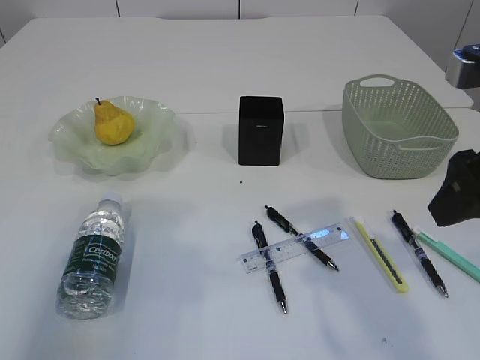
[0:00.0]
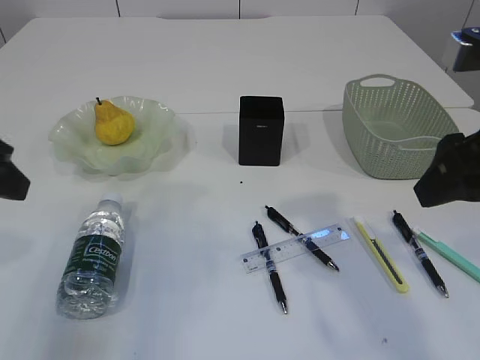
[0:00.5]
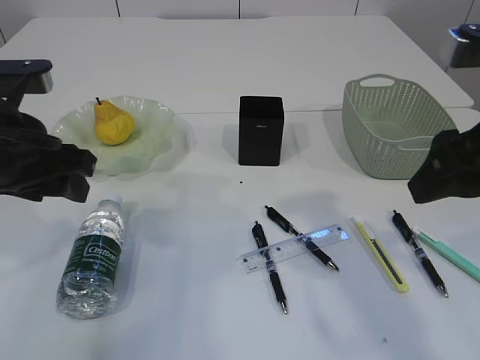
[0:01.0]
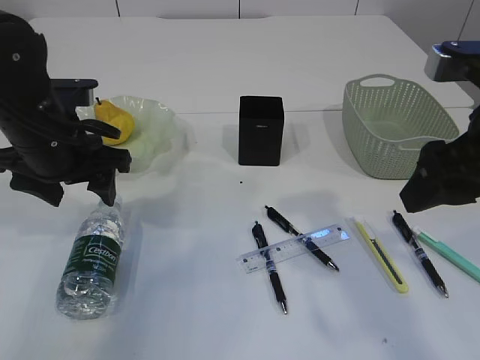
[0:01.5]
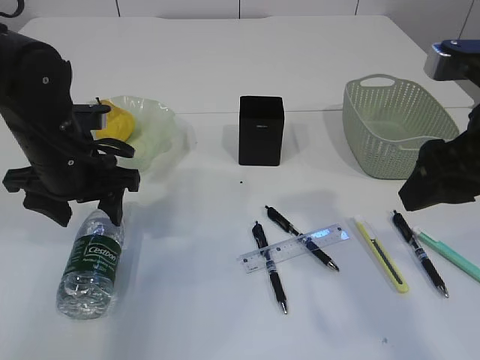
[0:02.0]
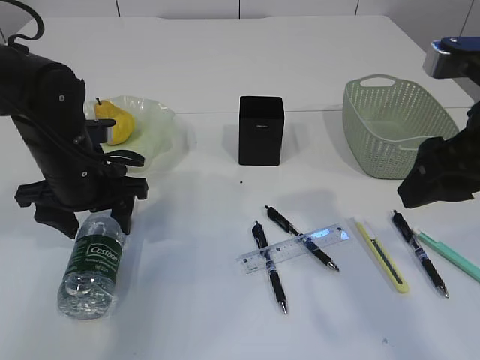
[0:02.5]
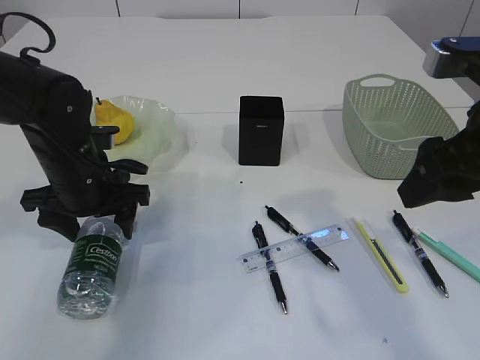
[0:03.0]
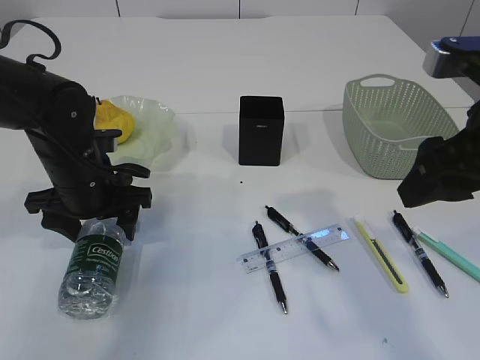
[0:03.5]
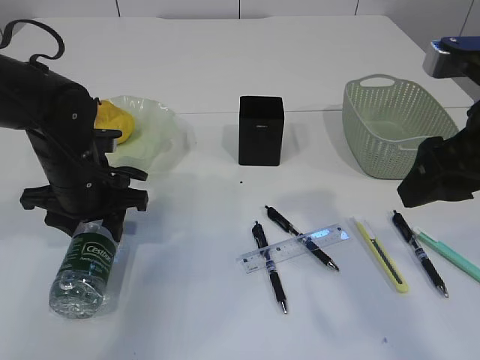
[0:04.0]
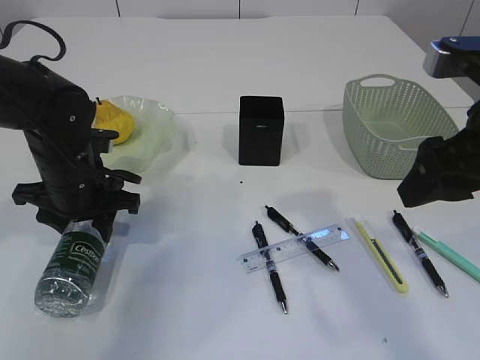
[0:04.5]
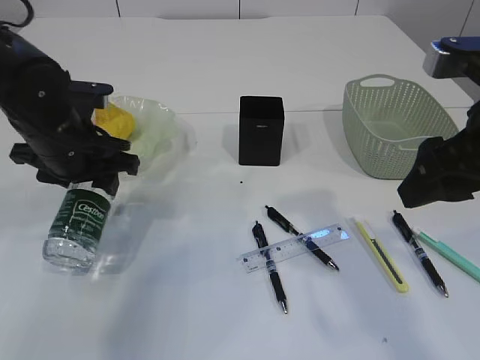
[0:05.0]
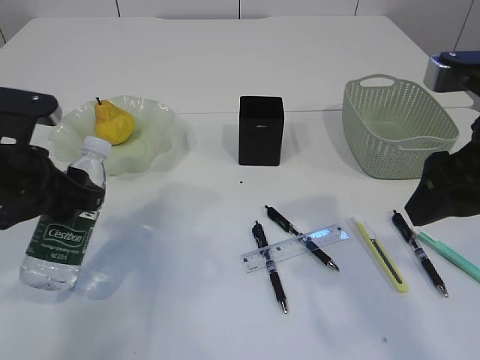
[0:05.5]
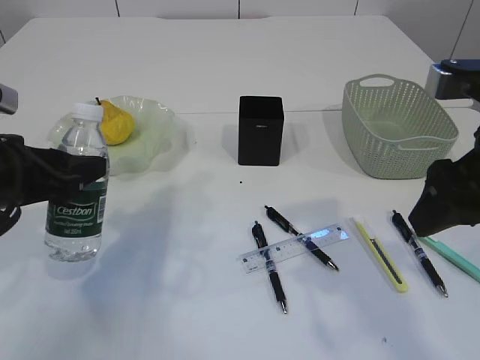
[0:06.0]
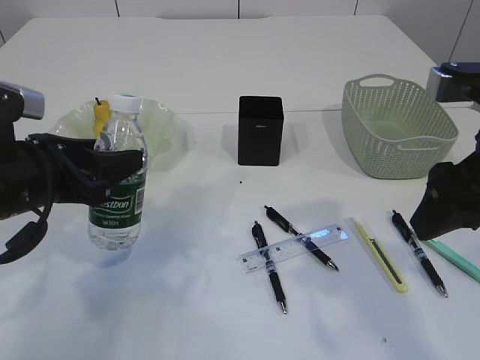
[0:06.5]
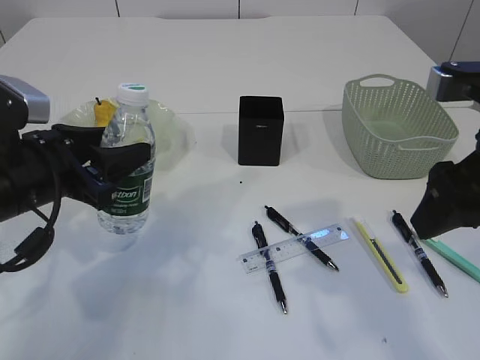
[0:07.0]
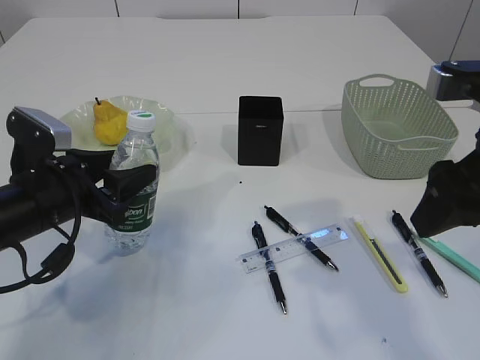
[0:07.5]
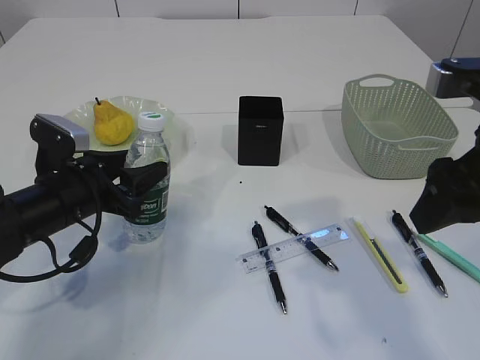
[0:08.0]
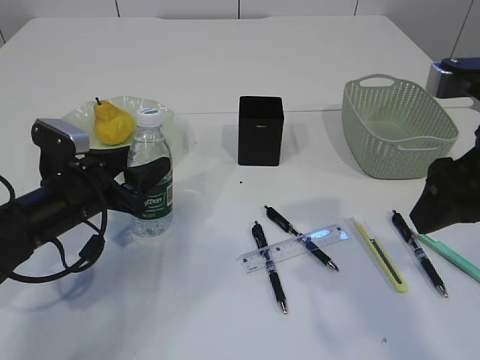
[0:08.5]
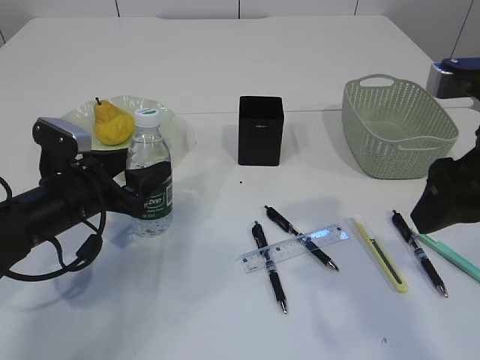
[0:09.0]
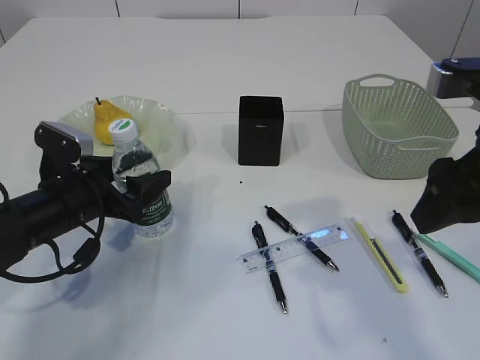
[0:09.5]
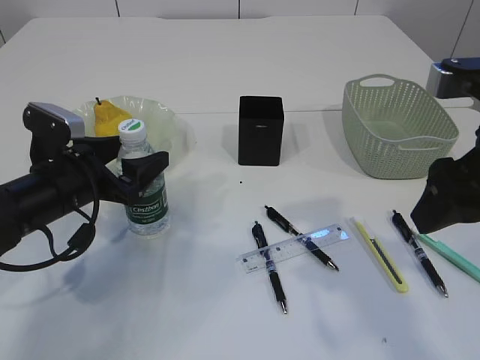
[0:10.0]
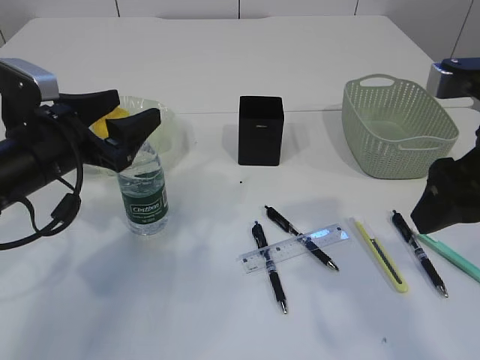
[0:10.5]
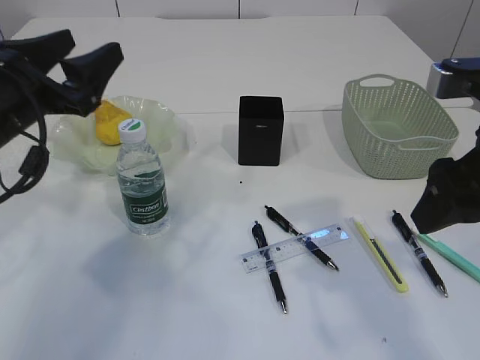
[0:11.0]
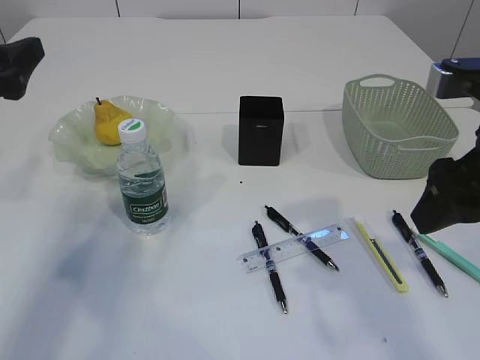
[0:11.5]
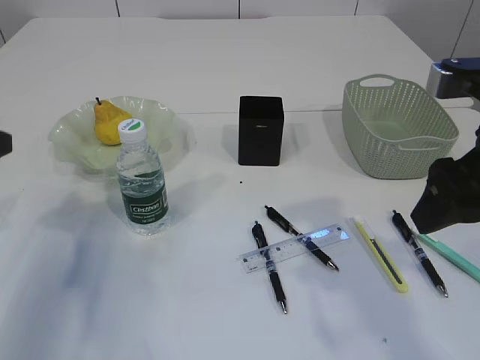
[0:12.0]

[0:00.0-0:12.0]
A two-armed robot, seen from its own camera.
Step, 0:00.0 to 0:04.5: Pick up the bottle with the left arm.
Step, 0:05.0 to 0:10.0: Place the bottle.
0:00.0 to 0:02.0: The left gripper moves forward, downward and to the right, roughly 20 cm, and opens up.
0:02.0 to 0:04.0: The left gripper closes its fingers.
0:04.0 to 0:06.0: The left gripper goes about 10 cm backward, upward and to the left.
0:06.0 to 0:08.0: The left gripper travels downward and forward by approximately 10 cm.
0:08.0 to 0:10.0: The left gripper opens its fingers.
0:10.0 to 0:12.0: The left gripper shifts about 15 cm to the left, upward and backward.

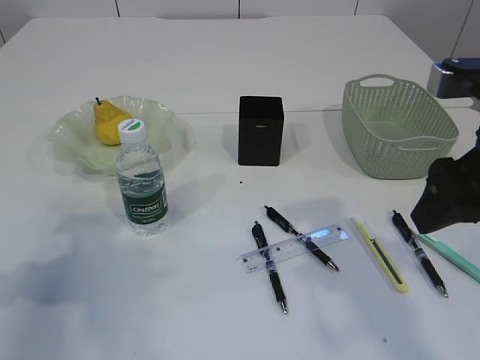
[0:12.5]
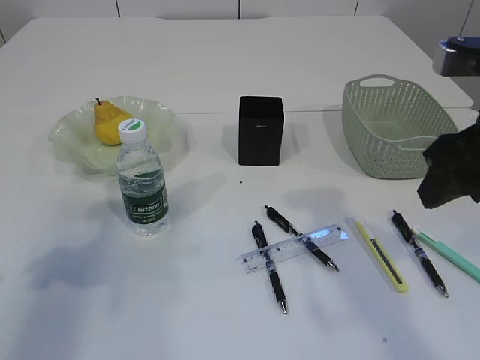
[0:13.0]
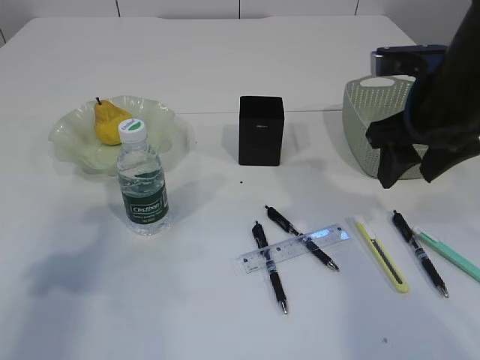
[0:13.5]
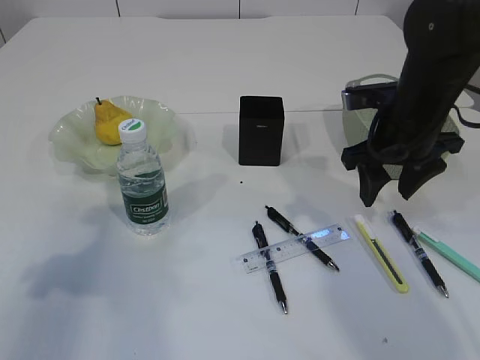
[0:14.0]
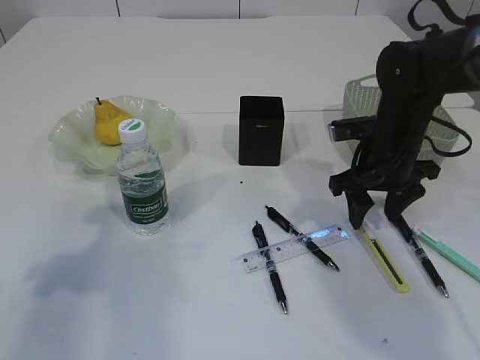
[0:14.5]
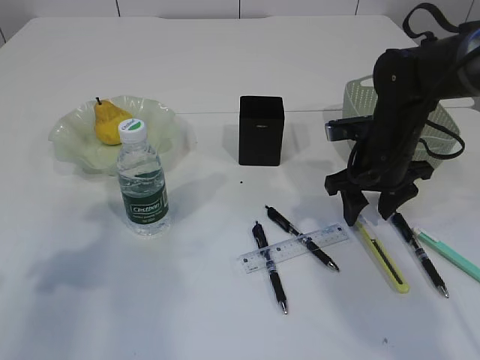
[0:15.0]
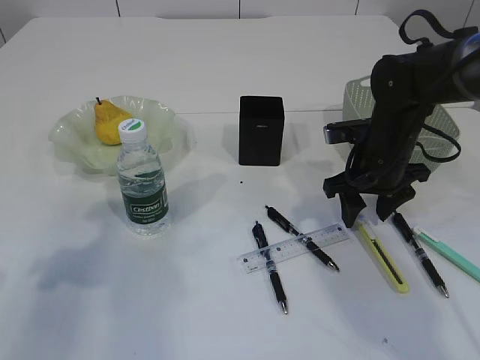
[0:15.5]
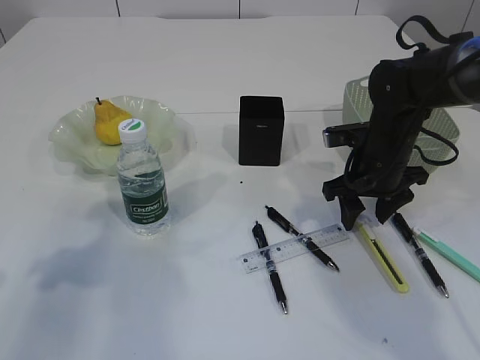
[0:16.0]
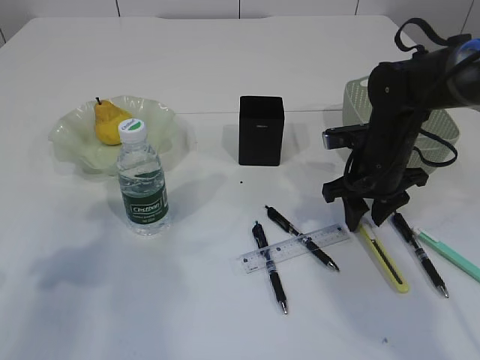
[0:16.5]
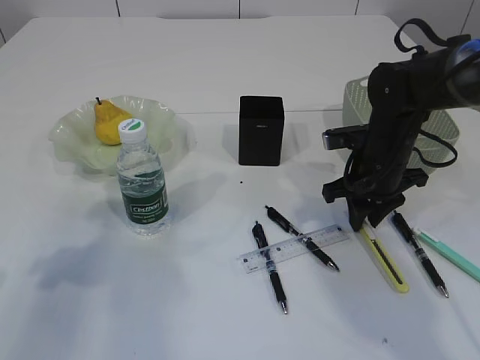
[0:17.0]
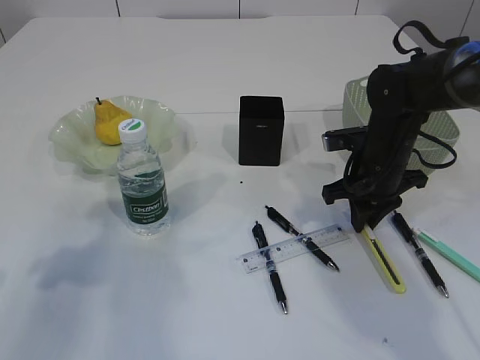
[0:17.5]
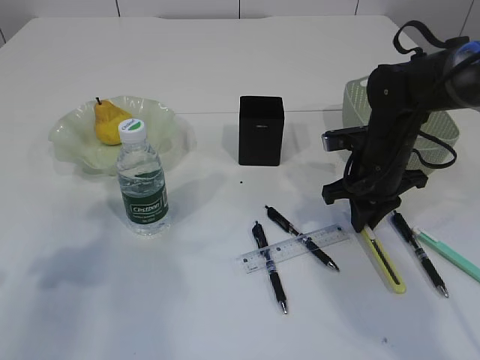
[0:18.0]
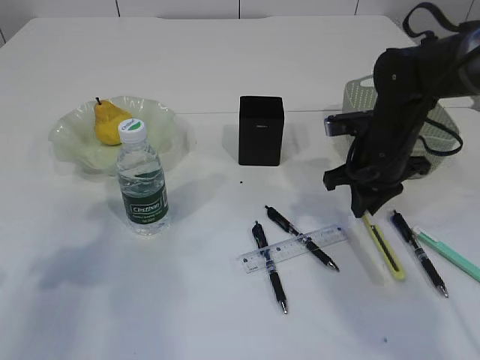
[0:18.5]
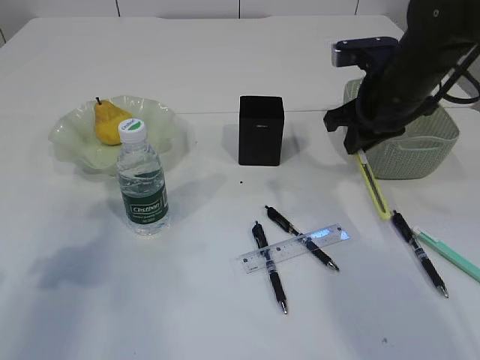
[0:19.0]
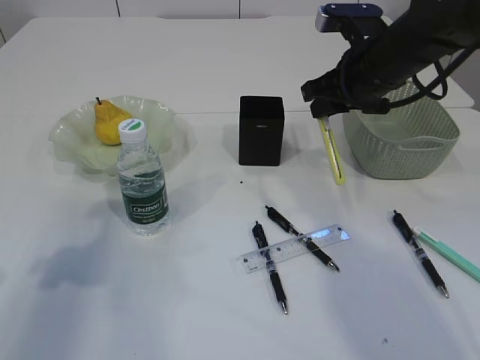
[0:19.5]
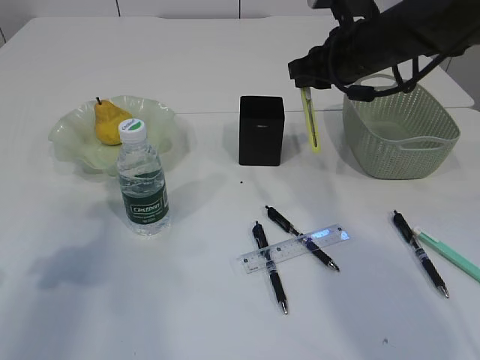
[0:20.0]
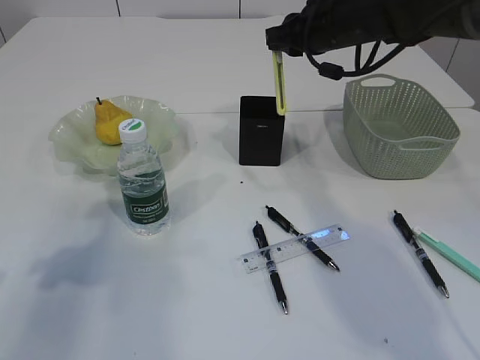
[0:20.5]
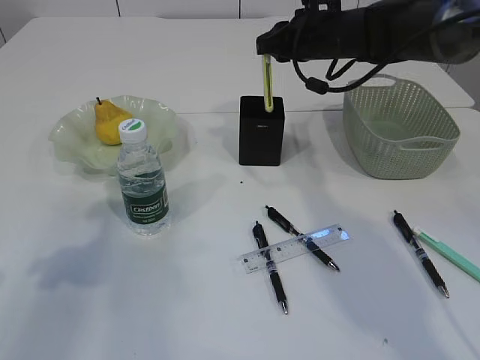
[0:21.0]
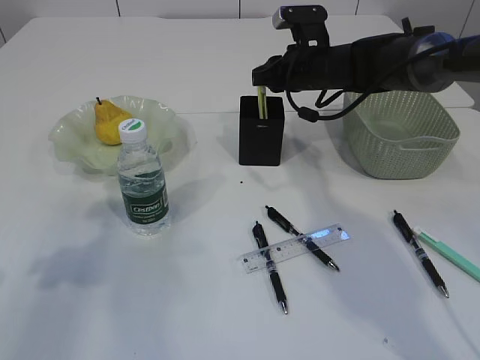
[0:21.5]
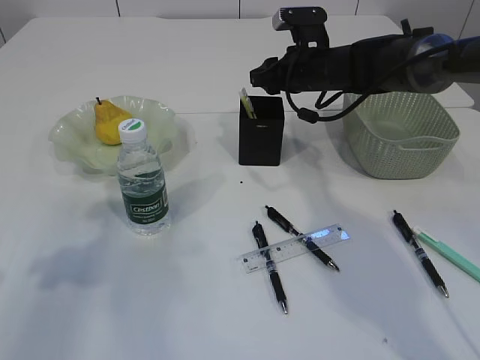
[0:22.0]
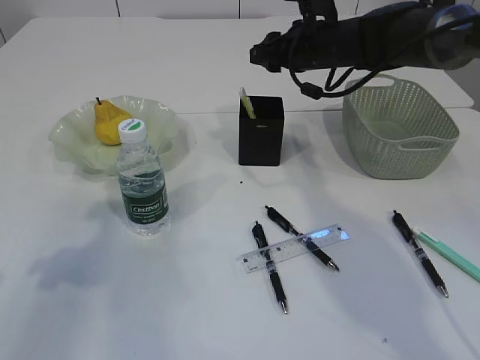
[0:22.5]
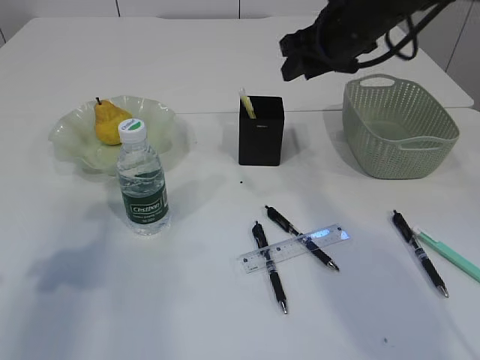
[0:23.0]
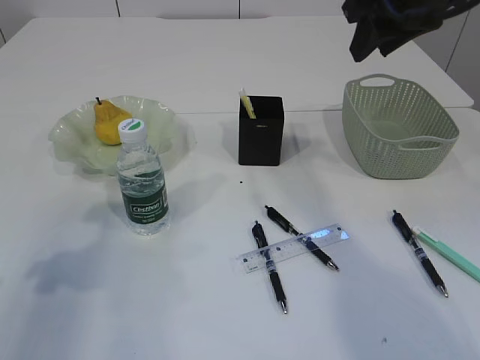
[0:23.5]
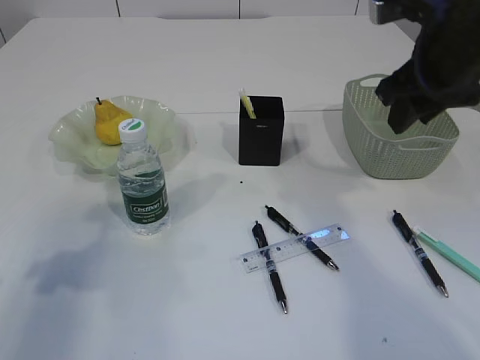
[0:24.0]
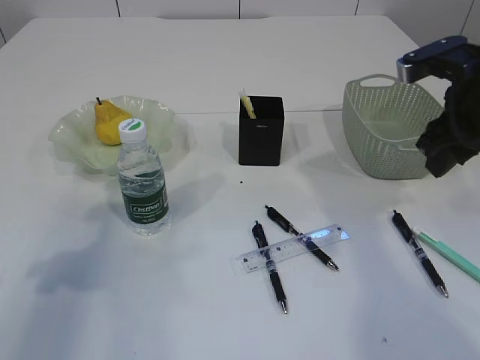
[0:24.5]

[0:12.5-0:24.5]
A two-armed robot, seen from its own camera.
Step, 0:12.5 to 0:18.5: pick up the yellow knife.
Step, 0:19.0 to 0:22.0: place the yellow knife into the pen holder.
0:12.5 to 0:14.5: The right gripper heads forward and downward, covering about 20 cm.
0:14.5 to 0:16.5: The grippers move only a little.
0:16.5 to 0:18.5: The right gripper closes up.
0:18.5 to 0:20.5: The right gripper travels upward, forward and to the left by some 15 cm.
0:20.5 to 0:22.5: The right gripper opens up.
0:22.5 to 0:24.5: The right gripper travels backward and to the right by about 20 cm.

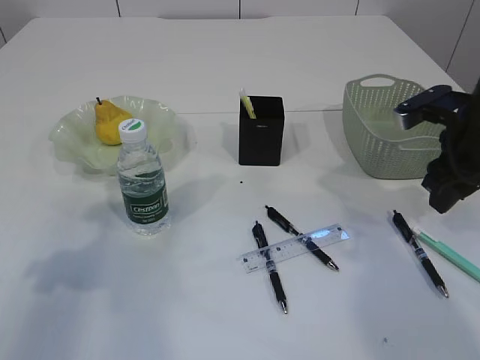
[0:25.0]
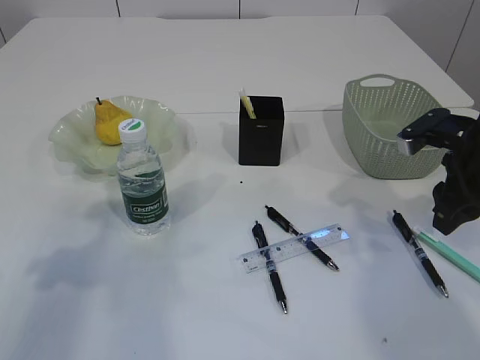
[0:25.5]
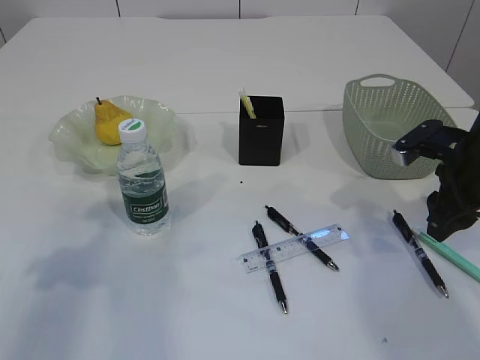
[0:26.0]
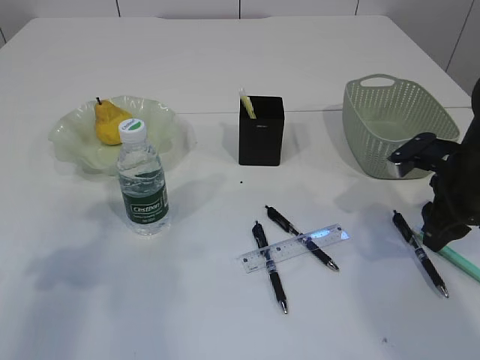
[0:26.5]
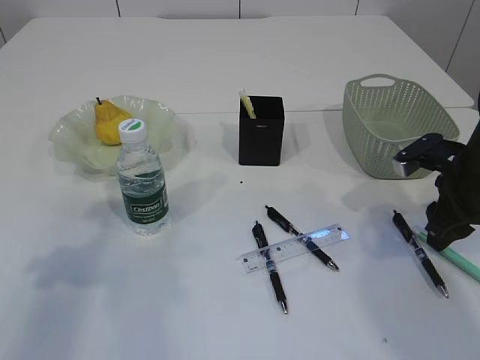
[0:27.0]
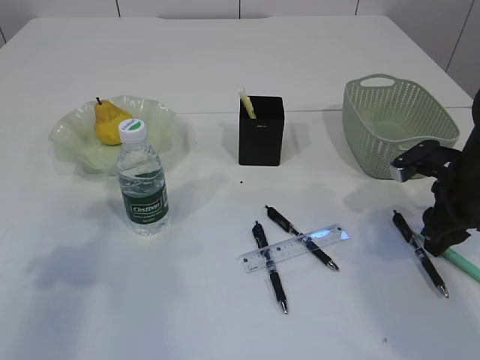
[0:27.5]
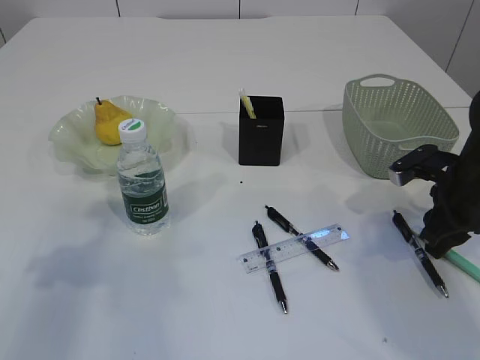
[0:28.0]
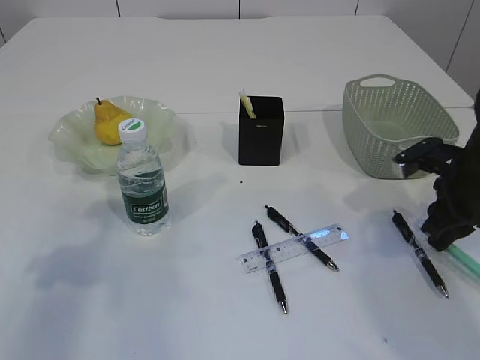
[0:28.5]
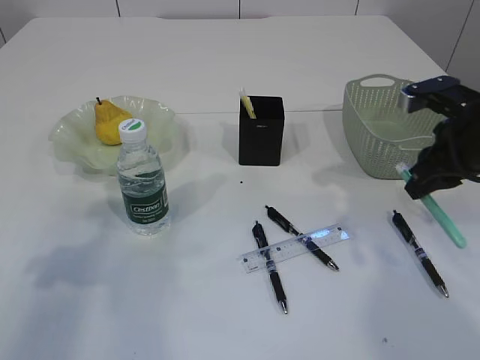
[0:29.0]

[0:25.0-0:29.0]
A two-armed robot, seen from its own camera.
Step, 0:25.0 to 0:28.5: pick up the blue knife.
0:25.0 to 0:27.0: The right gripper moves downward, roughly 5 cm.
0:27.0 to 0:29.0: The right gripper heads upward, covering some 5 cm, and closes up.
